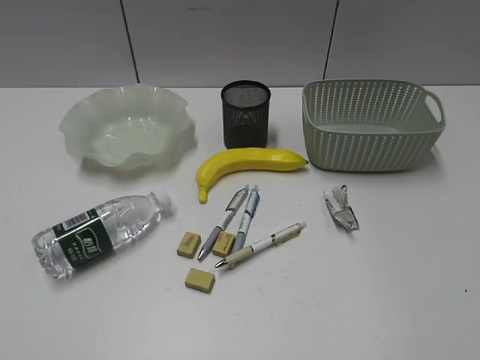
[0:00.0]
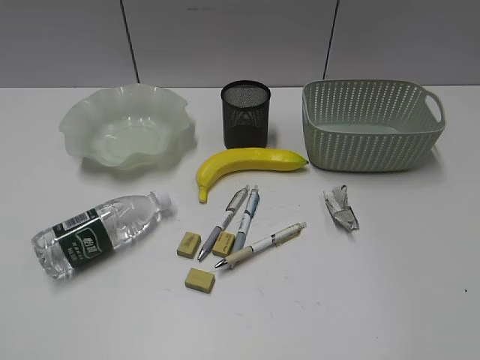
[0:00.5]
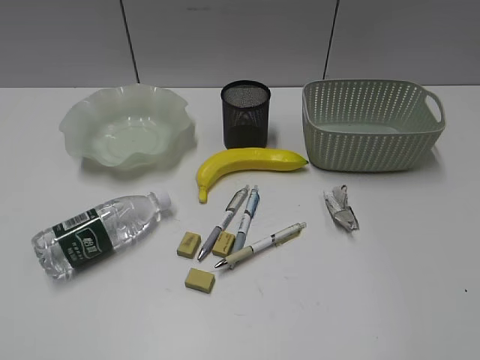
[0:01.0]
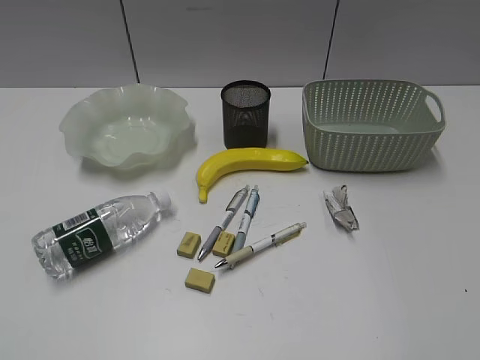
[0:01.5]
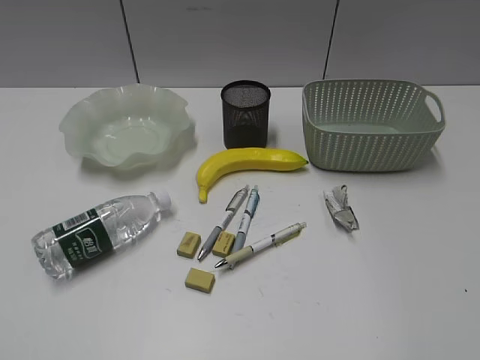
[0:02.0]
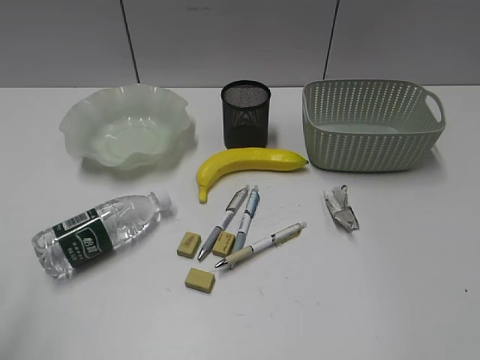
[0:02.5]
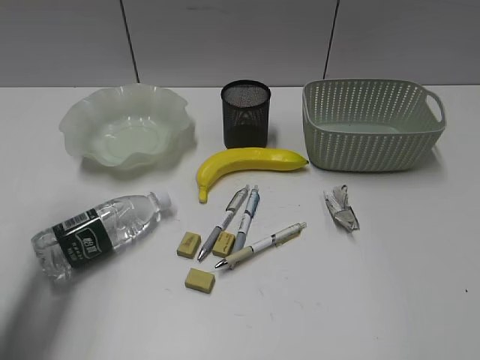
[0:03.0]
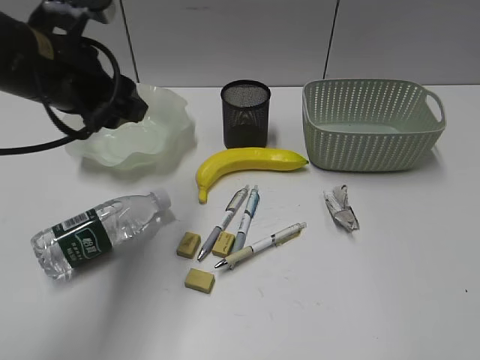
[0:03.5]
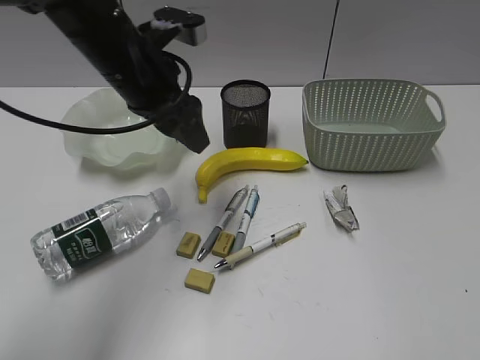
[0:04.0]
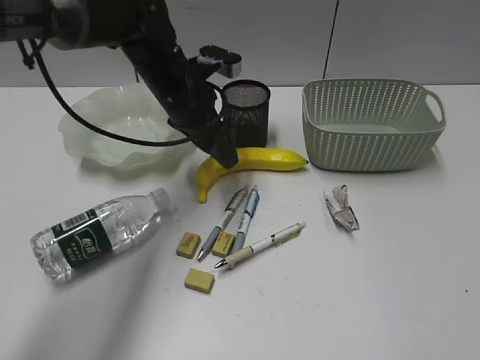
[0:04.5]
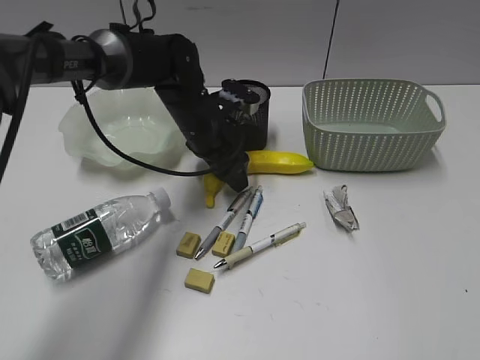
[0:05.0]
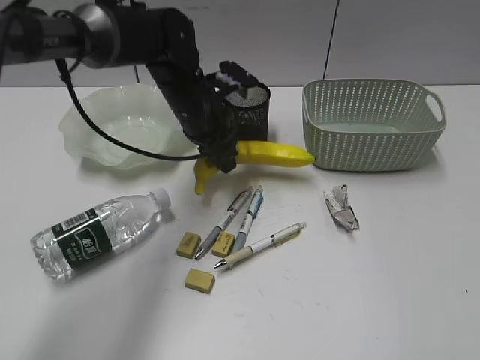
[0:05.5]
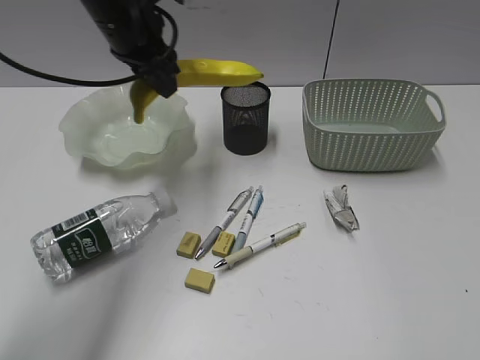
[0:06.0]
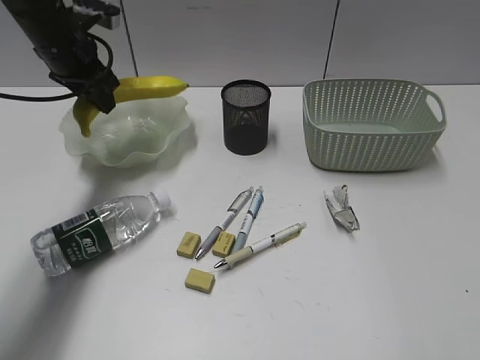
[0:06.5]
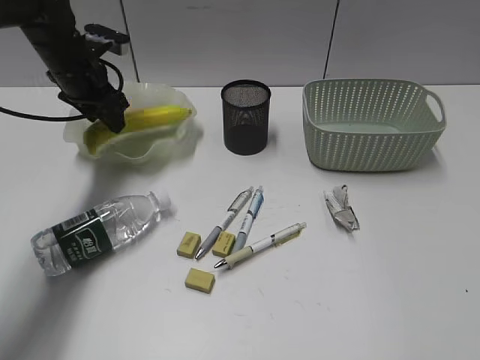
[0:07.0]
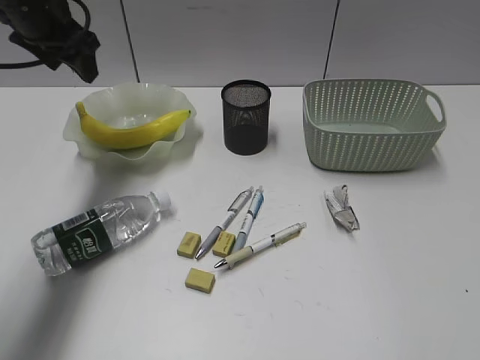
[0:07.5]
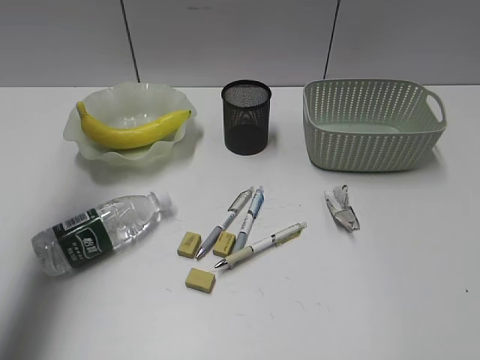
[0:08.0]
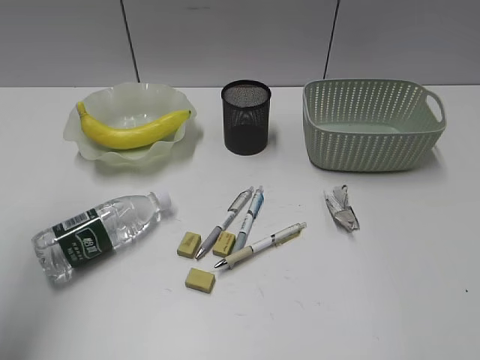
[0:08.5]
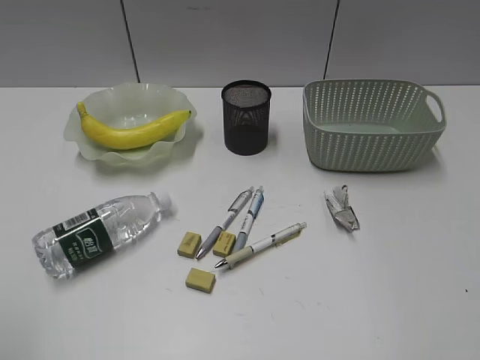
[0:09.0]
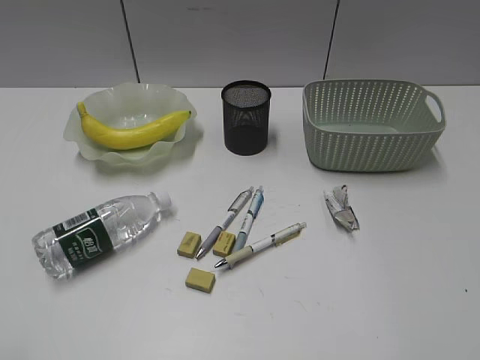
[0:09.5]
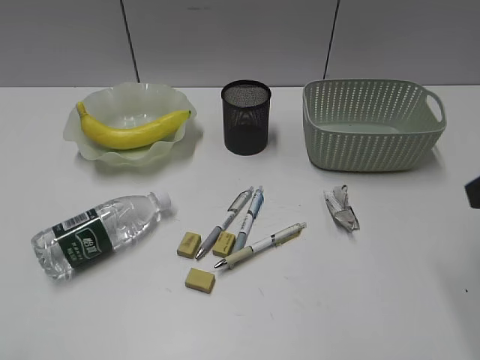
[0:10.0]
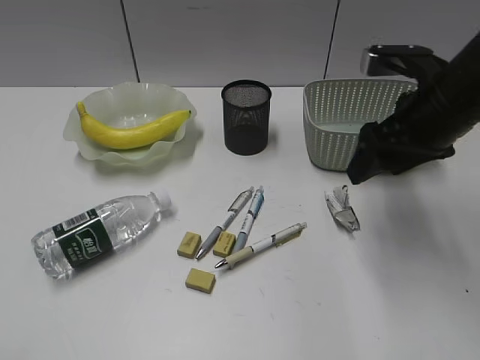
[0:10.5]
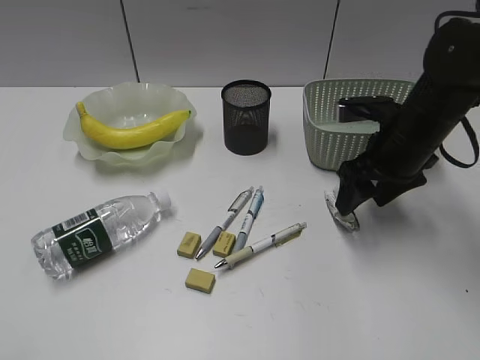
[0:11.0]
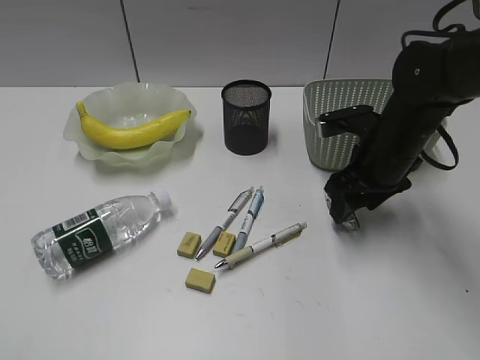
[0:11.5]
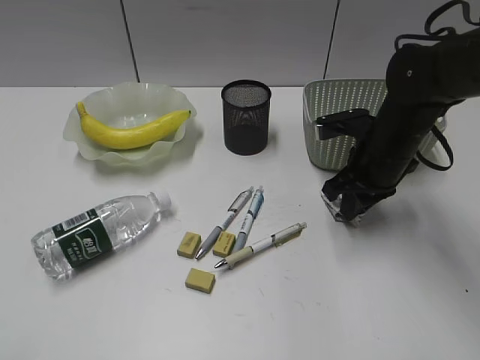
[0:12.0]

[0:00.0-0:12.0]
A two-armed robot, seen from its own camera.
Step, 0:02.0 to 0:05.0: Grasp the banana with left gripper.
Step, 0:05.5 to 0:07.0: Place the banana in the plate with left gripper.
0:02.0 to 0:04.0: The left gripper heads forward and to the right, covering approximately 40 cm.
0:04.0 to 0:06.0: The left gripper moves forward, roughly 5 cm, and reaches roughly 10 cm downward, then returns.
0:06.0 to 0:08.0: The left gripper shifts approximately 20 cm to the left and upward, and opens.
0:08.0 to 0:10.0: The left gripper is displaced backward by some 40 cm. The right gripper goes some 20 cm forward, and opens up.
0:10.0 to 0:12.0: The right gripper goes roughly 25 cm forward, downward and to the left, and closes.

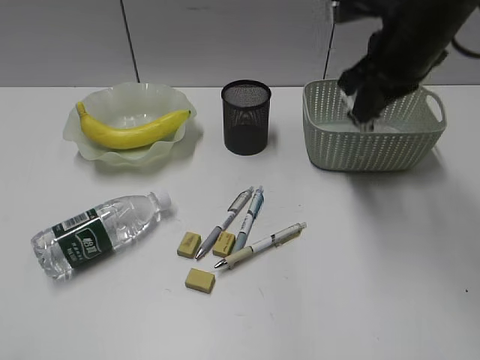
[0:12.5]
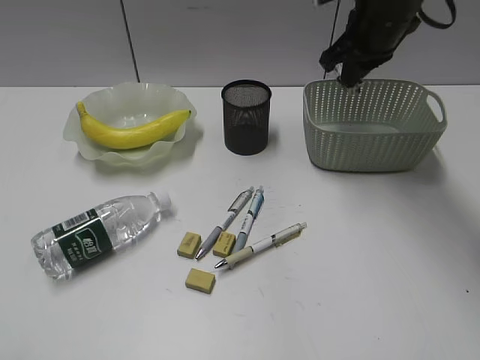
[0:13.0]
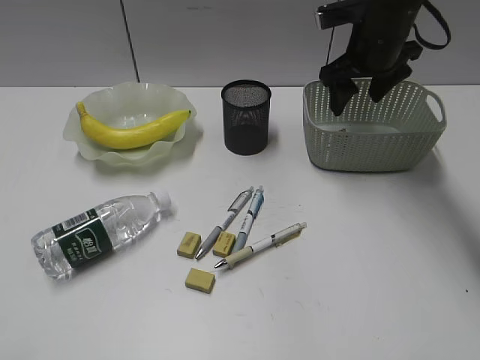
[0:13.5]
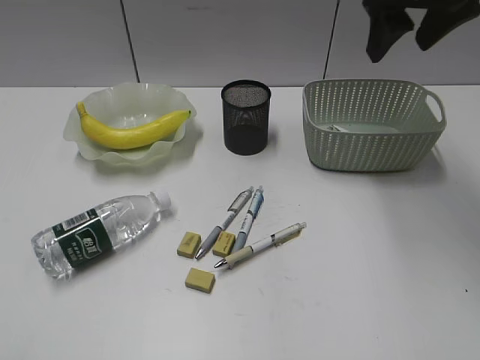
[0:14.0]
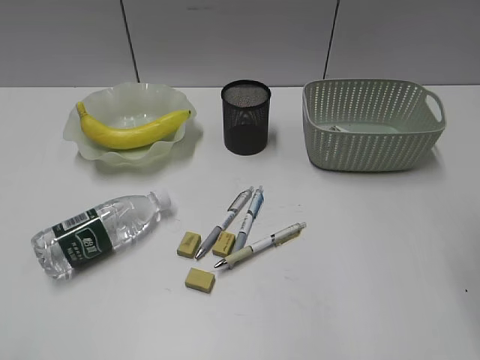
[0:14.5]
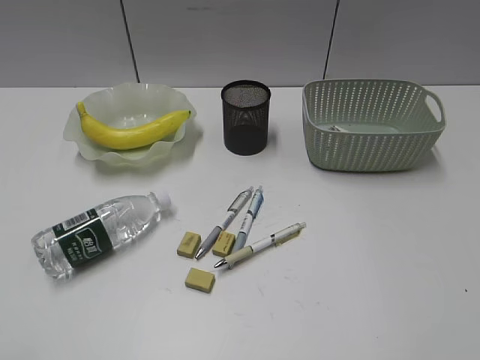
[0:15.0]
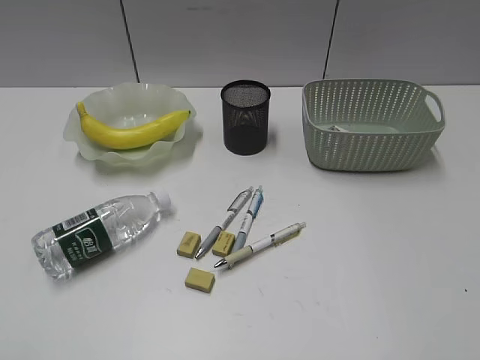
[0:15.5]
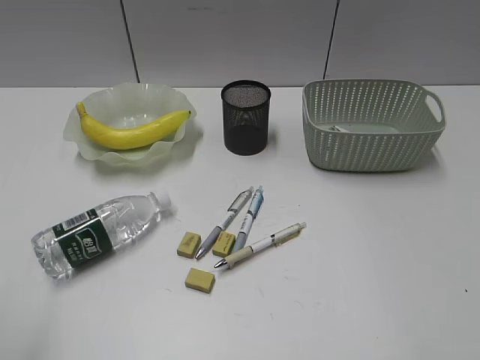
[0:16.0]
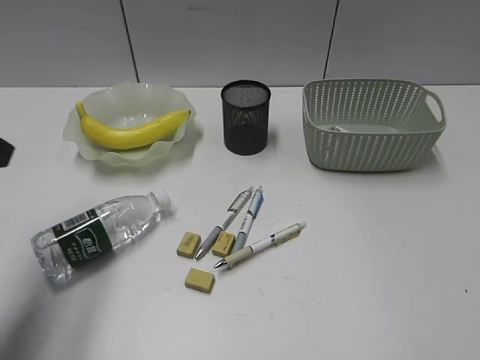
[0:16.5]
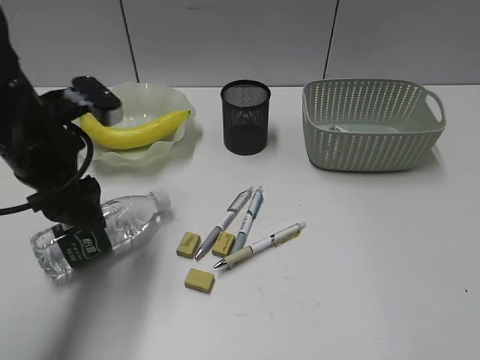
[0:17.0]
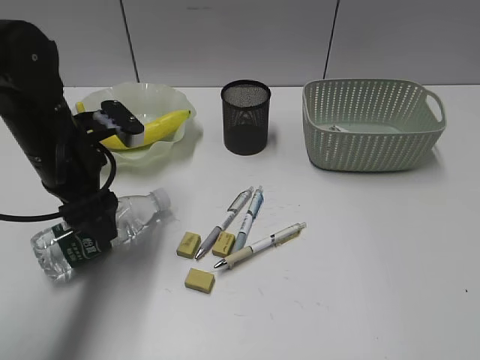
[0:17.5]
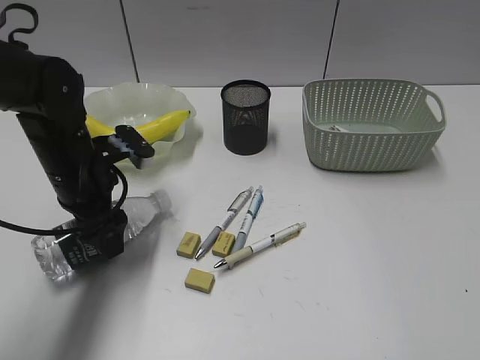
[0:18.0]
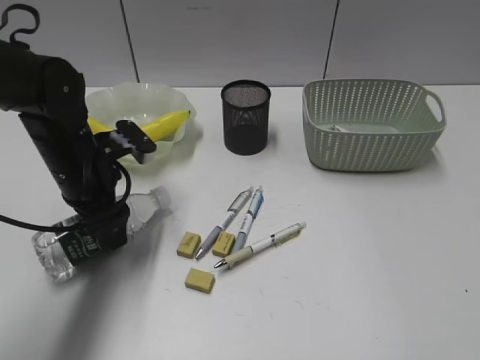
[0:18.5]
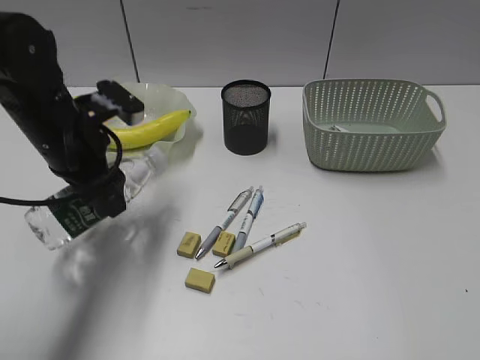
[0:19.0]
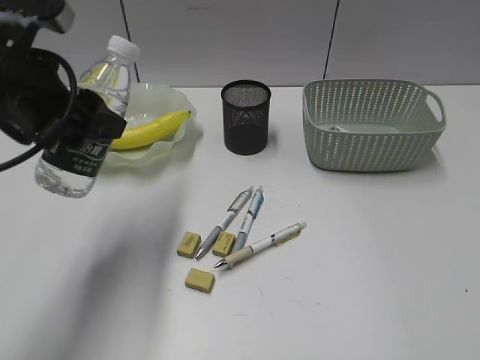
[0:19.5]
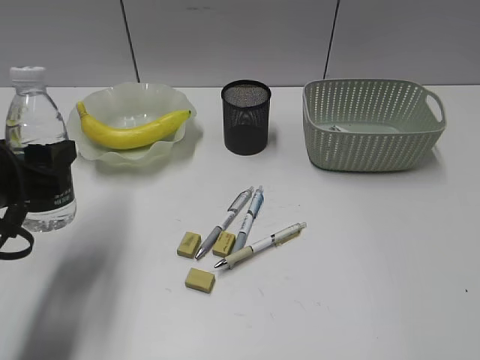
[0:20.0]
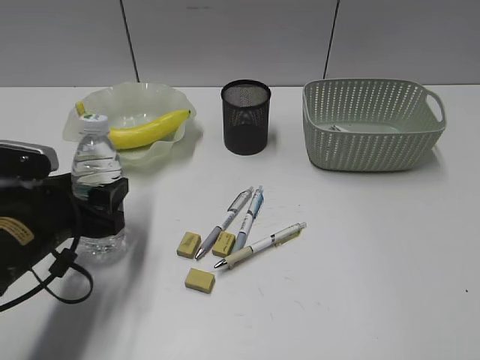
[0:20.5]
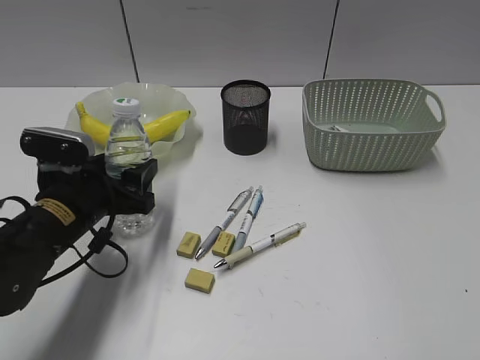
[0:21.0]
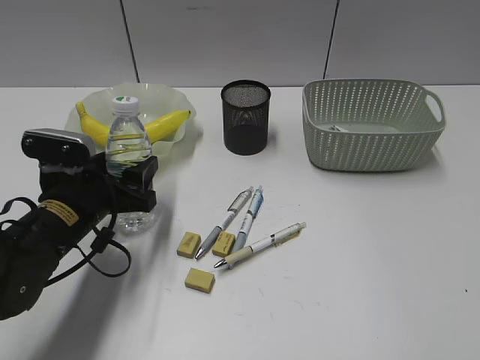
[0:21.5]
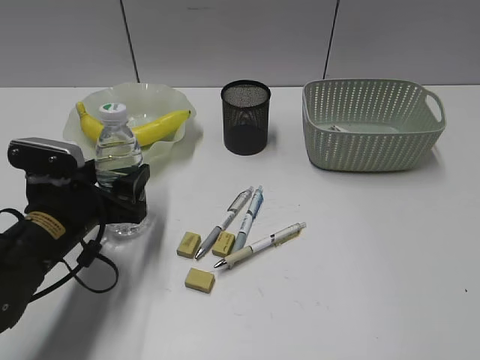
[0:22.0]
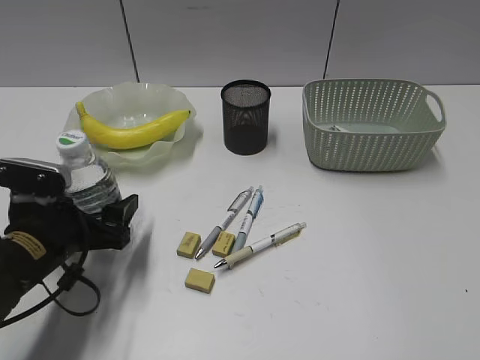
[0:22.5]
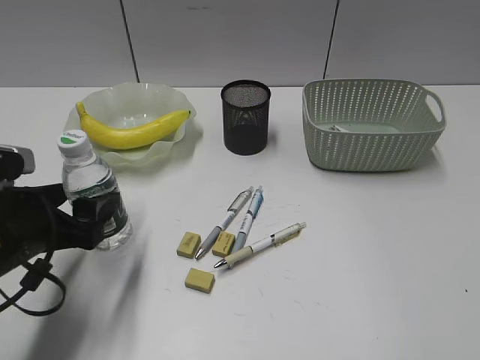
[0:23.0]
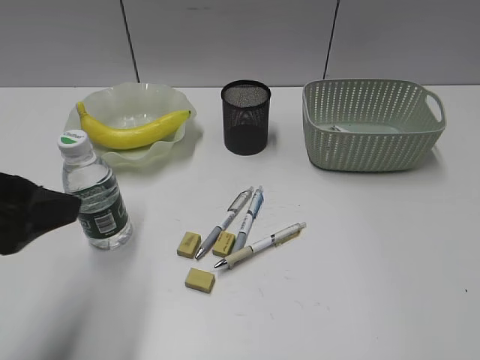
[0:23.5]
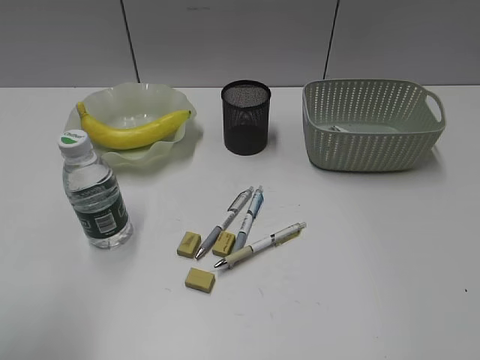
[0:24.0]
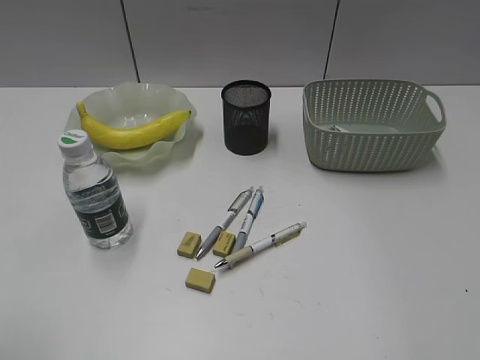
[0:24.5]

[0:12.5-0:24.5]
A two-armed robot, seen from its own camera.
Step, 0:12.5 to 0:13.5: Place the waste paper in the basket with right gripper.
Step, 0:14.0 to 0:18.5: Grasp the bottle with left gripper.
Step, 0:19.0 to 0:23.0: Stand the bottle with left gripper.
0:12.5 to 0:14.5: The right gripper travels backward, upward and to the right by roughly 20 cm, and opens up.
0:14.5 to 0:16.5: The left gripper heads forward, covering roughly 20 cm.
0:16.5 to 0:18.5: The left gripper shifts some 20 cm downward, forward and to the right.
0:18.5 to 0:20.5: The left gripper goes some 10 cm backward, and goes upward and returns, some 15 cm each way.
0:20.5 to 0:22.5: The grippers move only a little.
0:22.5 to 0:24.5: The left gripper heads upward, backward and to the left, covering roughly 30 cm.

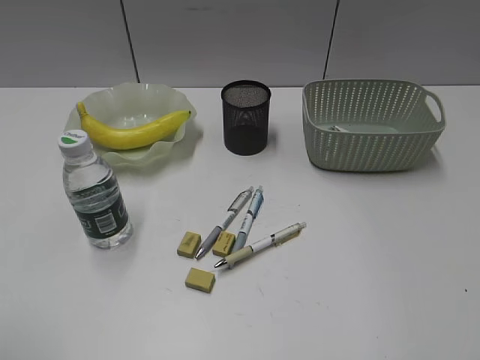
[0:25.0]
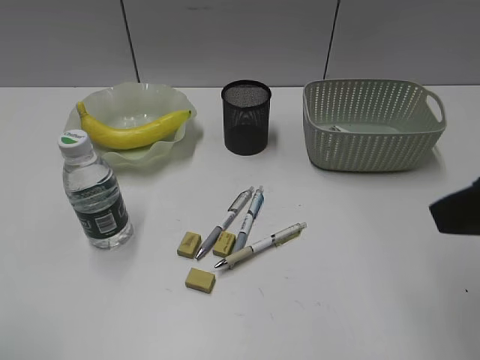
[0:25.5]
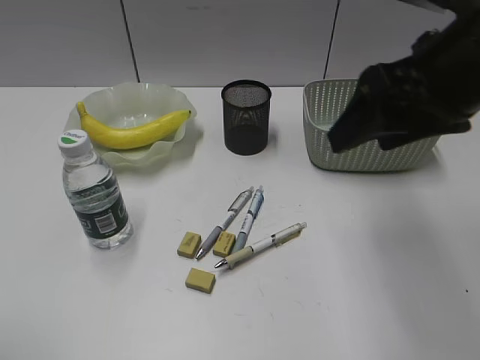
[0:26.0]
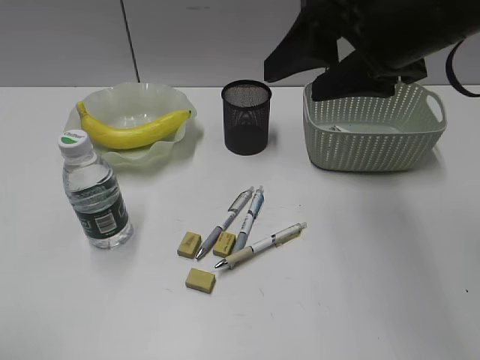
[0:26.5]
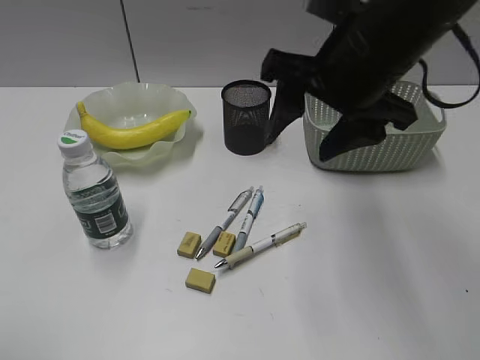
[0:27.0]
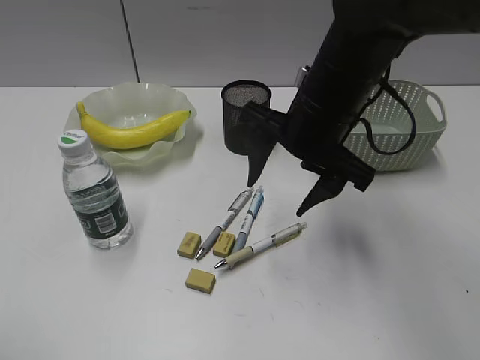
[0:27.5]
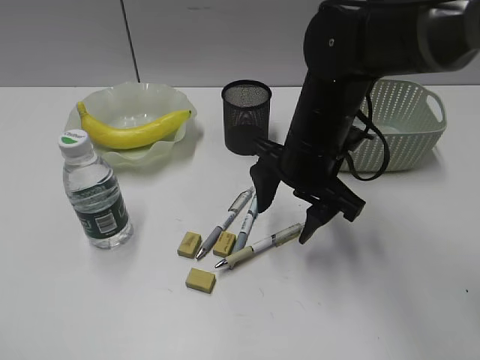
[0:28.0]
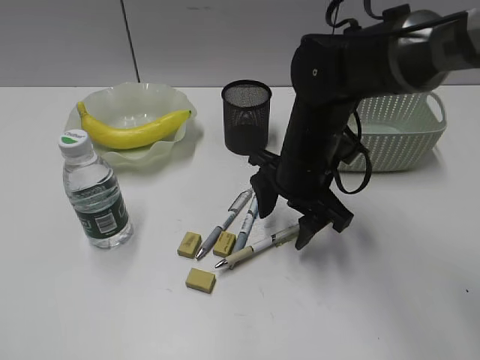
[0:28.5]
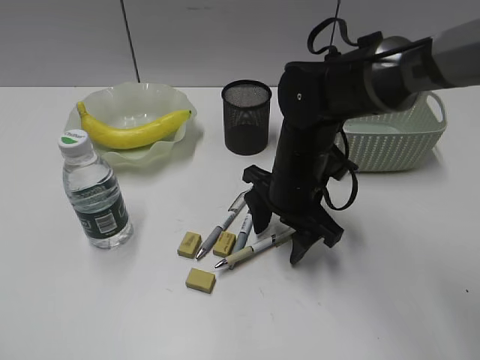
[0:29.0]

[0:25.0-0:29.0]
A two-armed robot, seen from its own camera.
0:25.0 to 0:27.0: The right gripper is displaced forward and to the left by some 30 cm.
0:27.0 to 0:29.0: The right gripper heads downward, covering some 15 cm.
